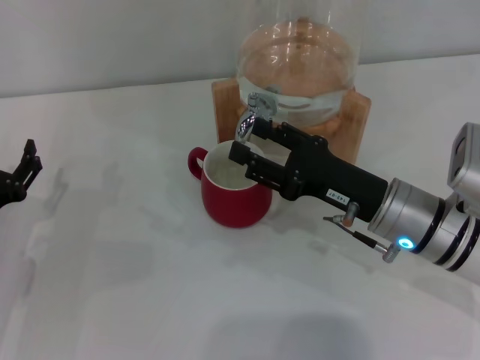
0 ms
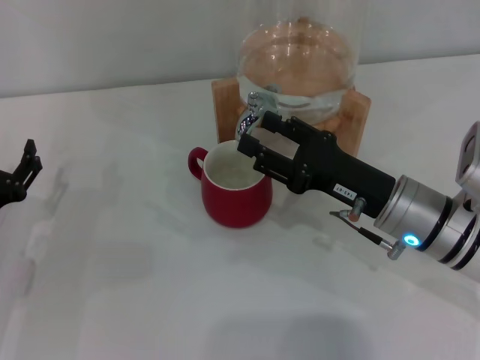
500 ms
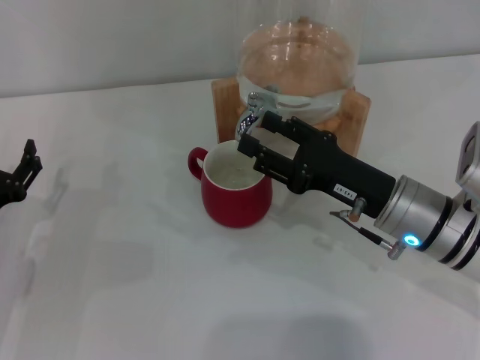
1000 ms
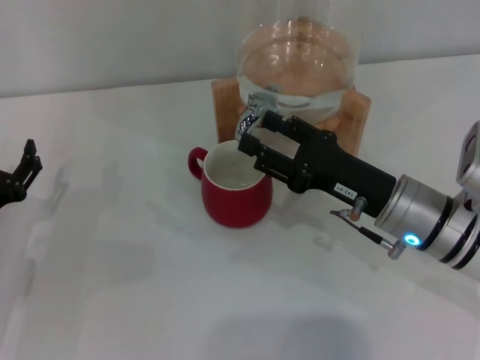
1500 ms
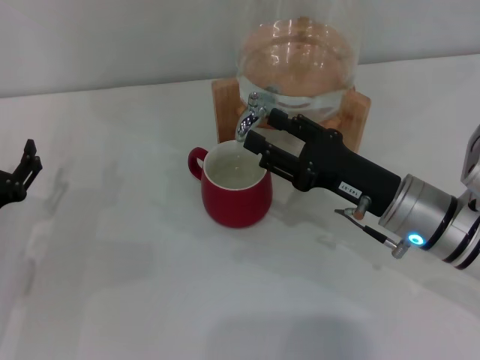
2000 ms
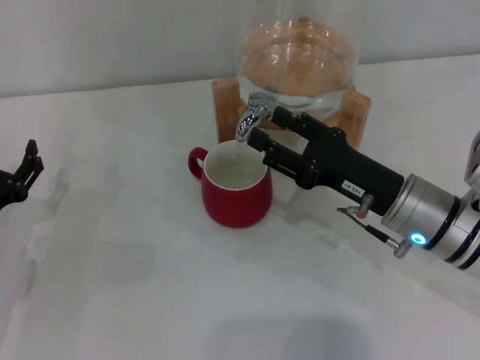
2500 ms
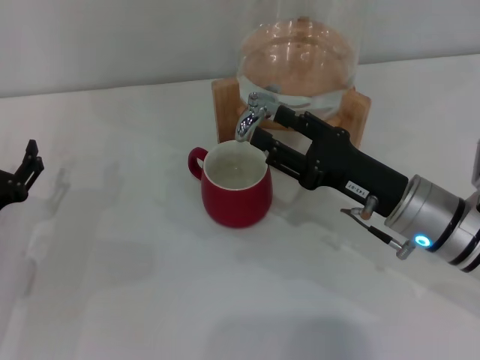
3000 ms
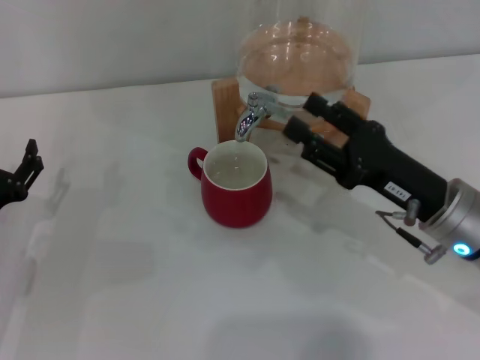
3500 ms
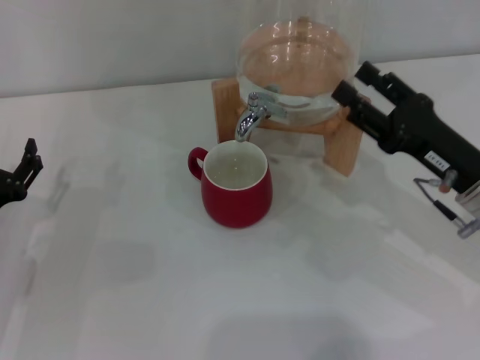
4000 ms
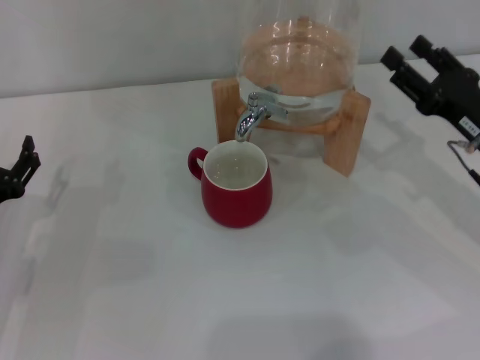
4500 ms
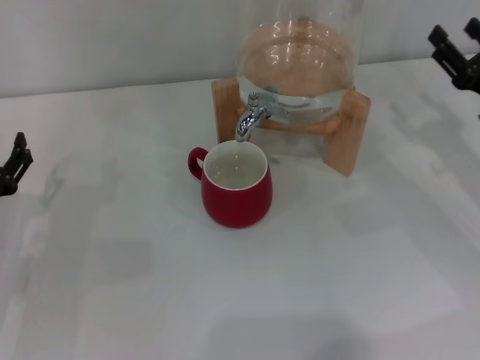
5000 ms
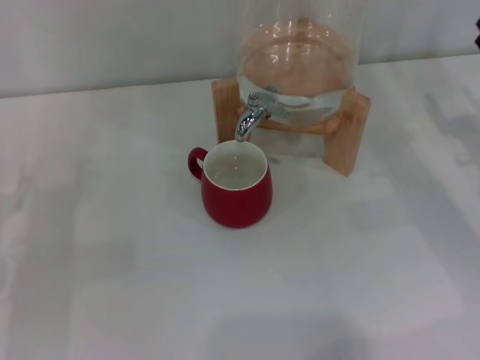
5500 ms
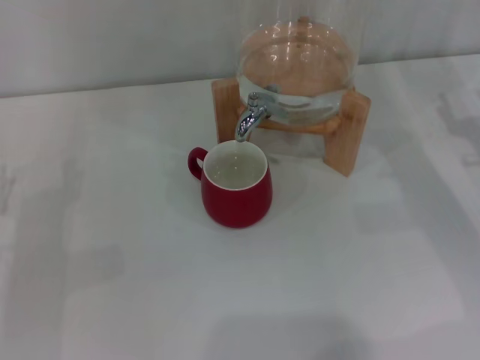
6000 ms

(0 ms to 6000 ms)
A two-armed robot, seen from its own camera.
Task of the whole recording: the left gripper pick up the red cup and place it horizontally under the faucet, the right gripper turn on the faucet to fill the cup, and then turn off the faucet.
Step, 0 ms - 3000 ms: Close the dispenser valve with the right gripper.
0 ms - 2000 ms: The two grippers keep their place.
2000 ms - 4000 ms: The right gripper travels to the right by some 5 cm.
4000 ms - 6000 ms: The right gripper goes about 10 cm to the right.
